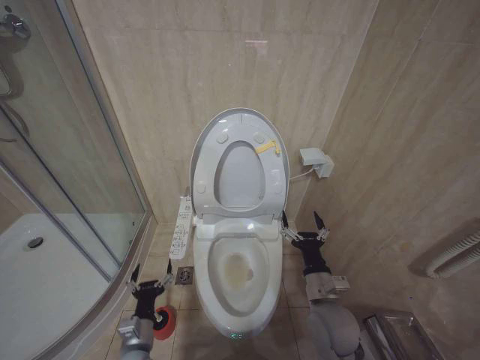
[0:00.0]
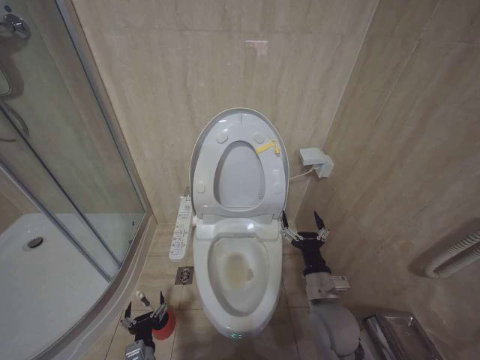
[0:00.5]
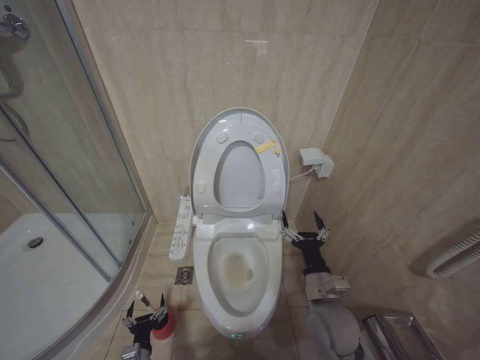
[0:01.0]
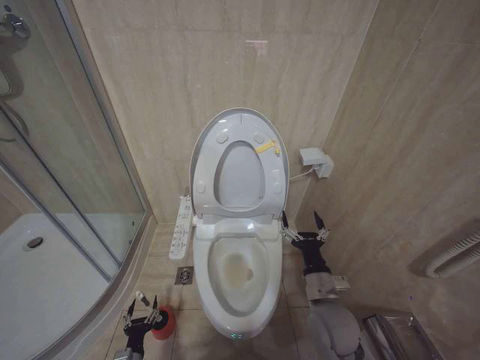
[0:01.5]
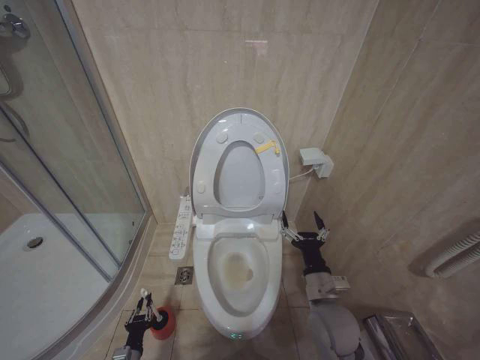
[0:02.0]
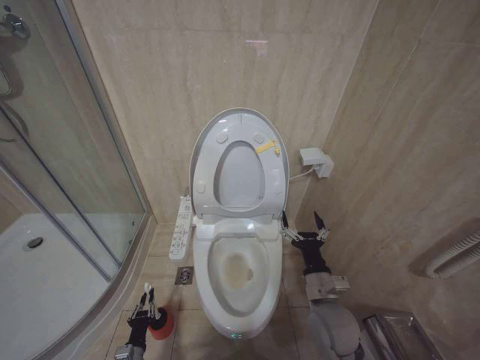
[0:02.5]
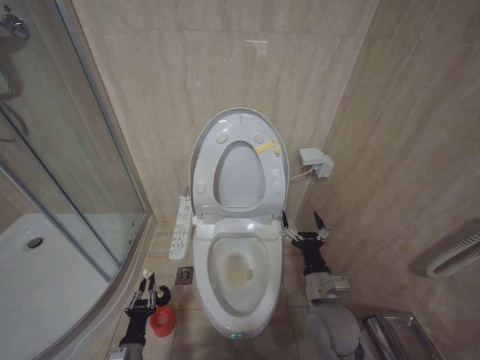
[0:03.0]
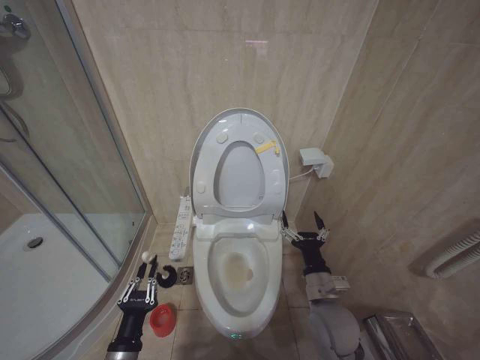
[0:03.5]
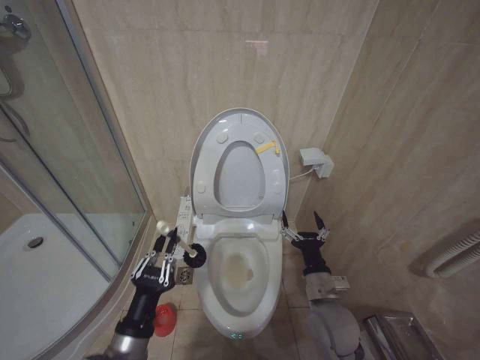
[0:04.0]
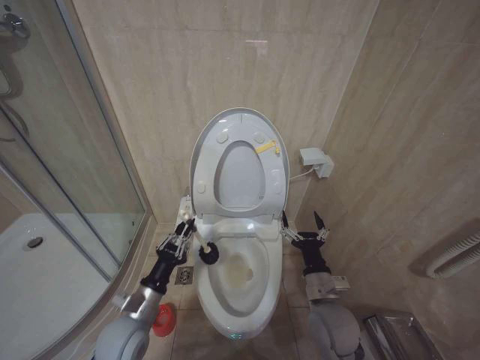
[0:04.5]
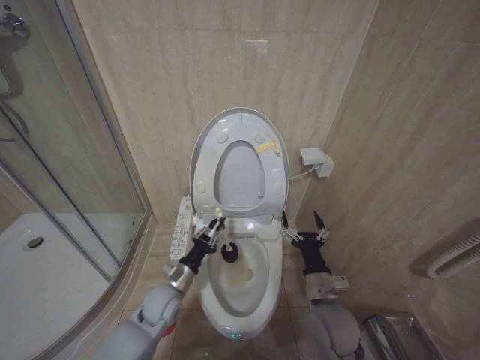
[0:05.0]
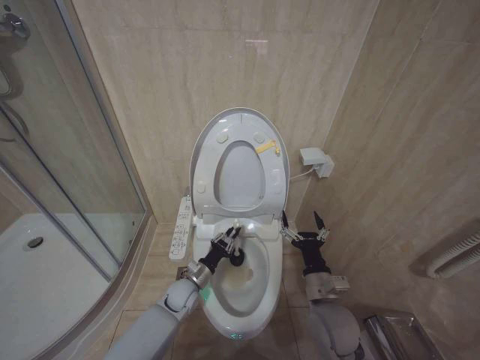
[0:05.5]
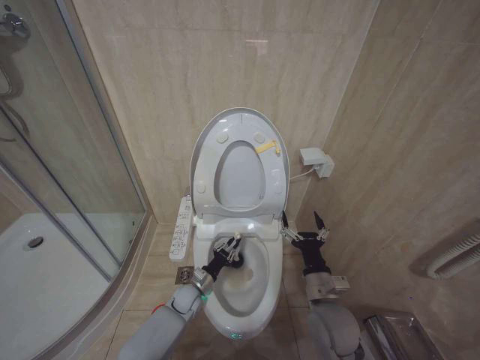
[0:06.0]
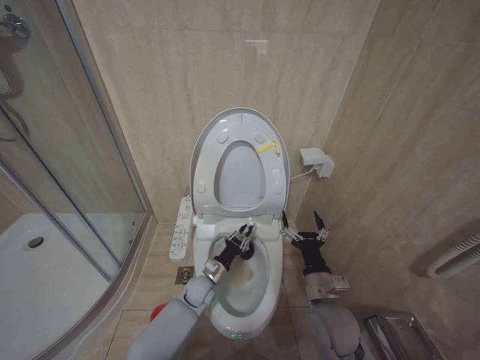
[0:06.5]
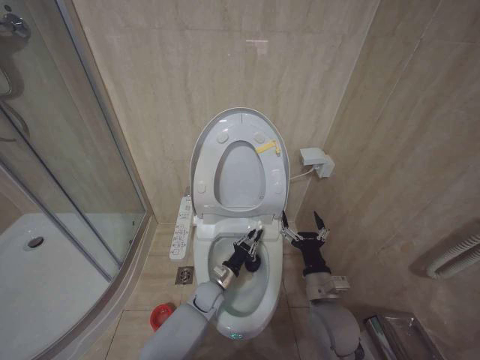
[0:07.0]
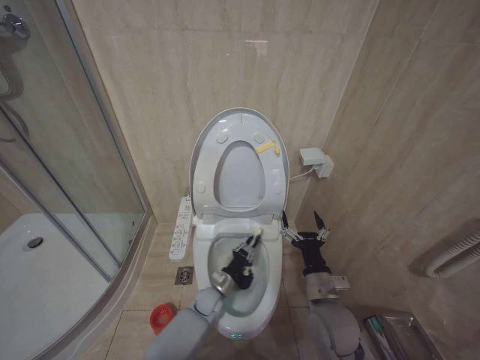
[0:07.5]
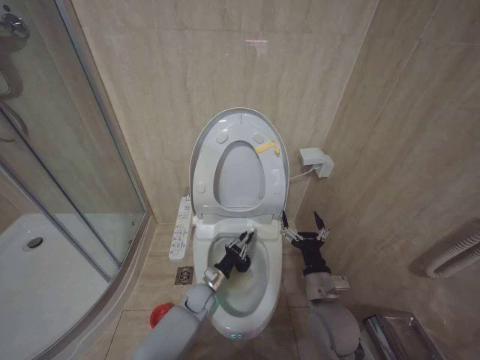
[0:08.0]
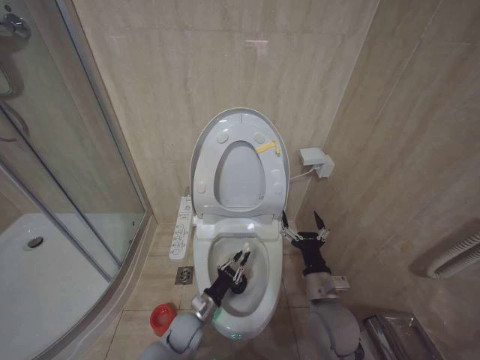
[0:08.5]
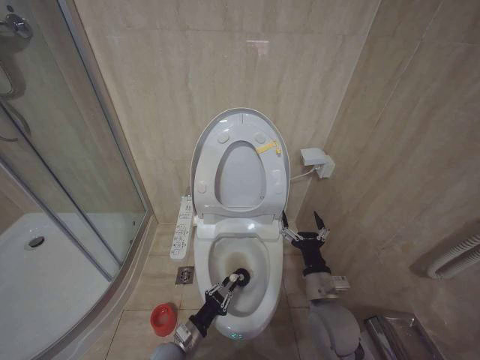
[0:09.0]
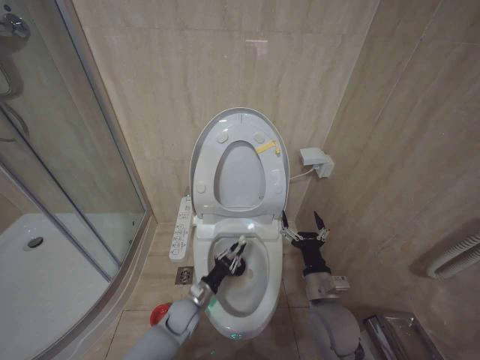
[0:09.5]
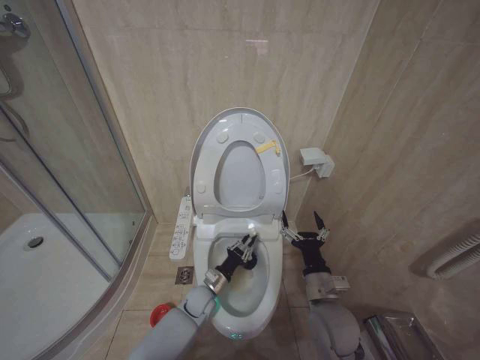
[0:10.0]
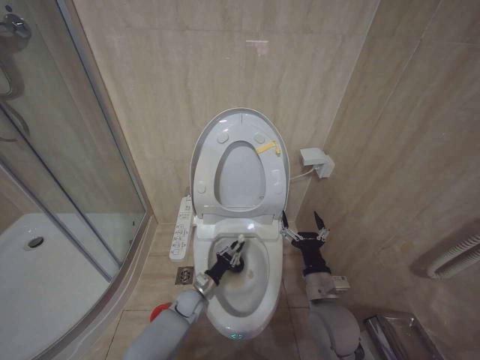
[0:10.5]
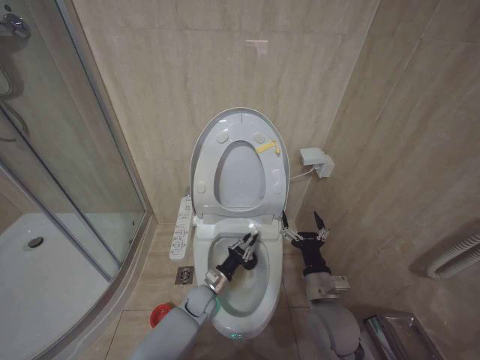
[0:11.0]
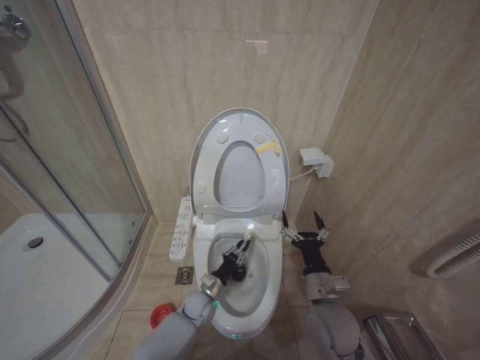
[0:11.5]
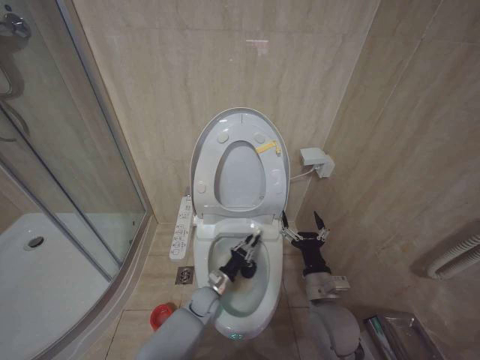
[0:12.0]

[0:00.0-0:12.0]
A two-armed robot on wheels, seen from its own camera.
Task of the whole recording: Open the toilet lid, clean the toilet bowl with a toilet brush, close the toilet lid, and flush.
0:00.0 to 0:02.0: The left gripper travels downward and to the left by roughly 20 cm, and closes up.
0:02.0 to 0:04.0: The left gripper shifts about 30 cm upward.
0:04.0 to 0:06.0: The left gripper heads forward and downward, covering some 35 cm.
0:08.0 to 0:10.0: The left gripper moves about 15 cm backward and comes back.

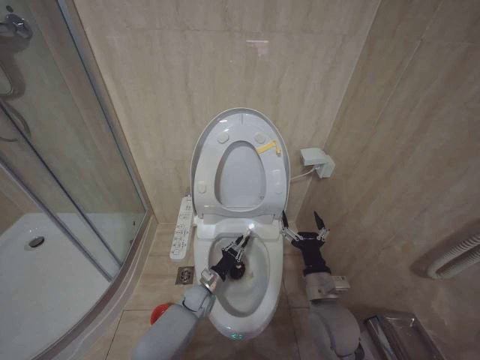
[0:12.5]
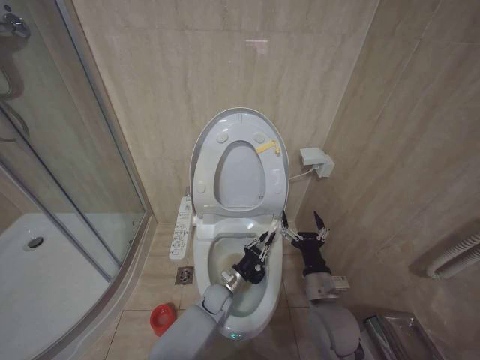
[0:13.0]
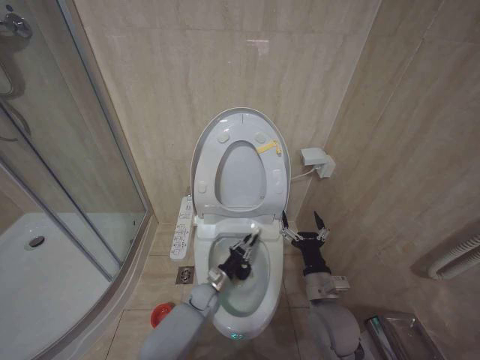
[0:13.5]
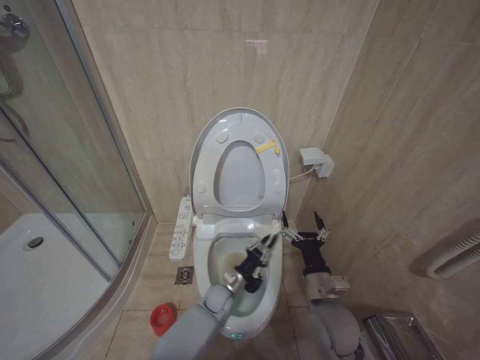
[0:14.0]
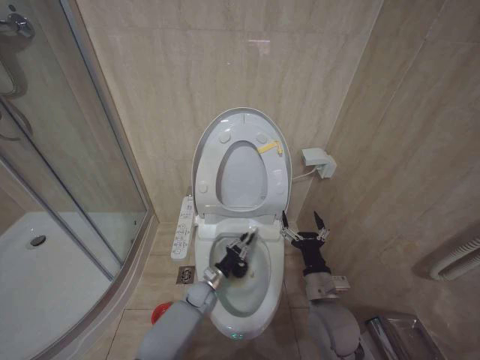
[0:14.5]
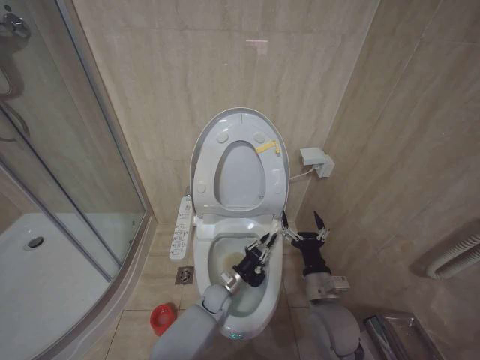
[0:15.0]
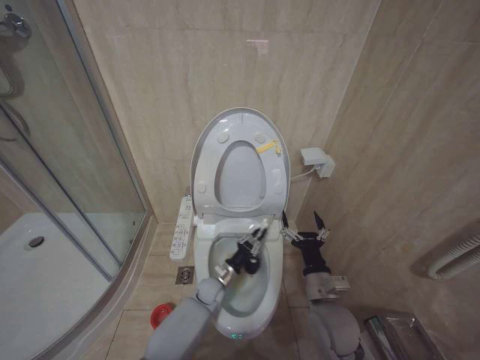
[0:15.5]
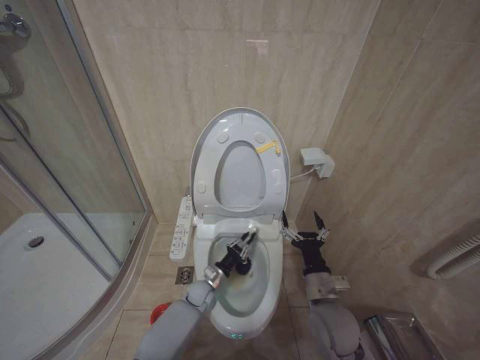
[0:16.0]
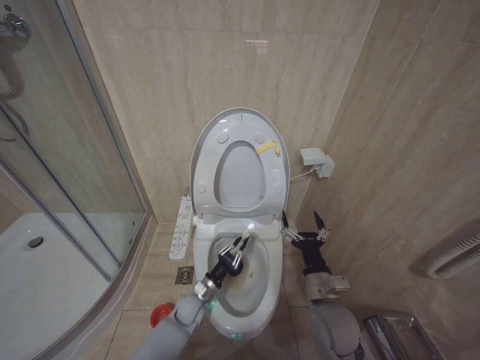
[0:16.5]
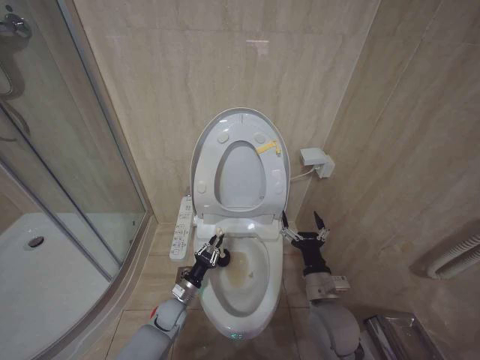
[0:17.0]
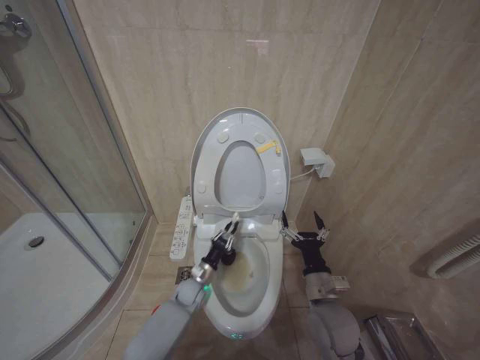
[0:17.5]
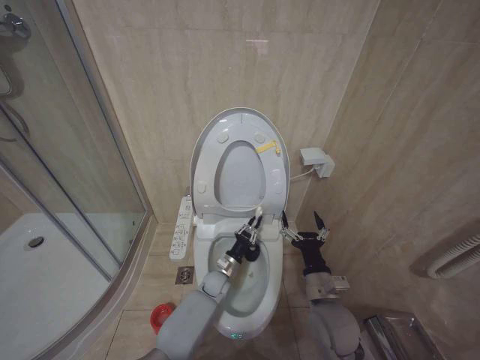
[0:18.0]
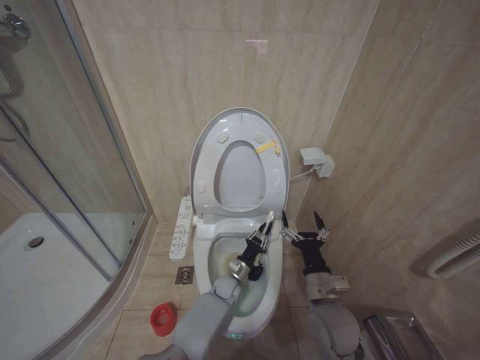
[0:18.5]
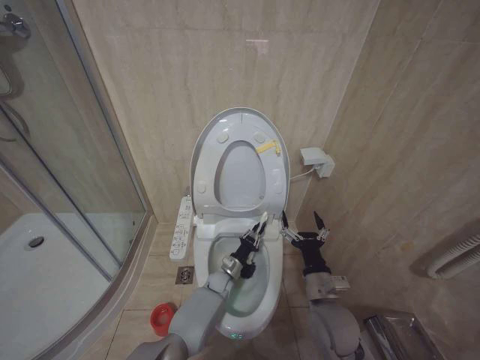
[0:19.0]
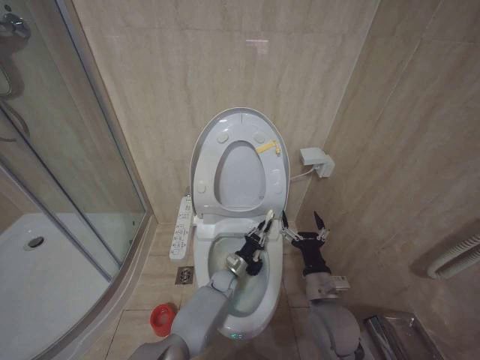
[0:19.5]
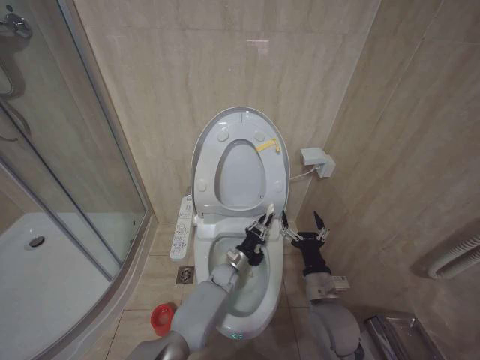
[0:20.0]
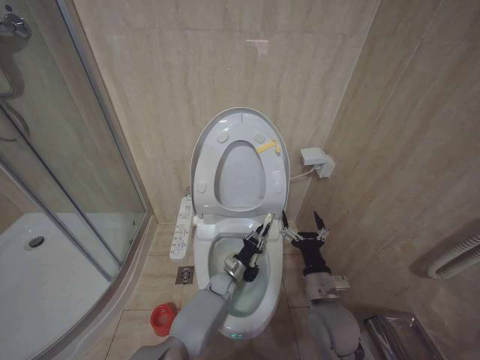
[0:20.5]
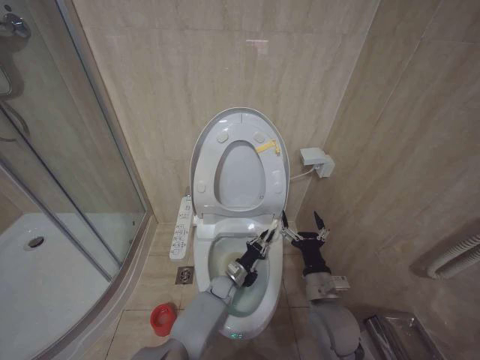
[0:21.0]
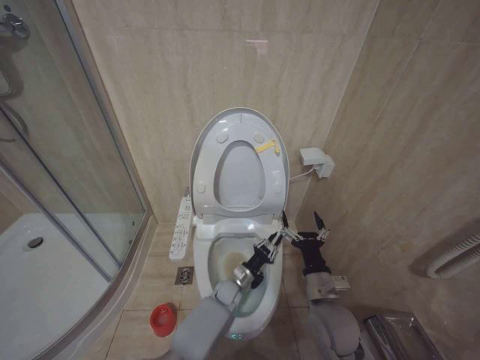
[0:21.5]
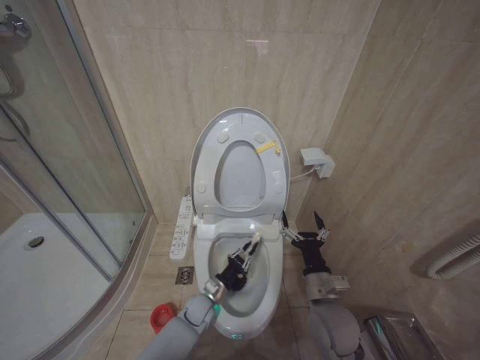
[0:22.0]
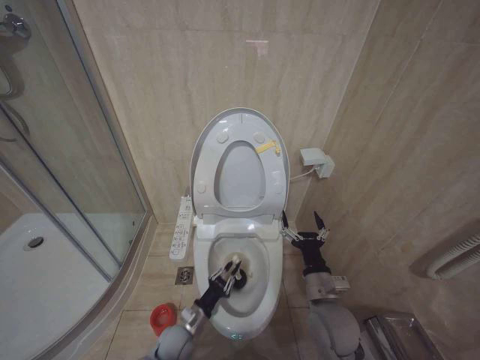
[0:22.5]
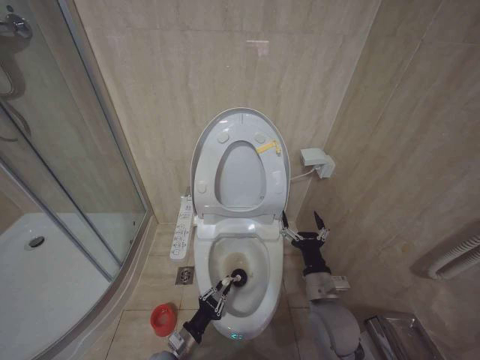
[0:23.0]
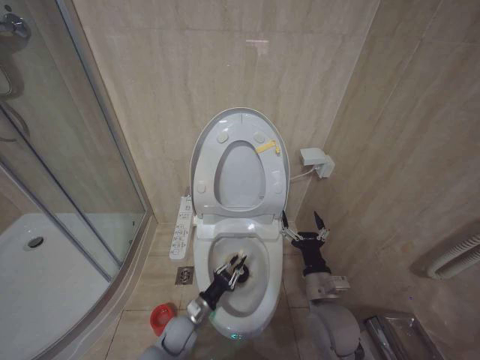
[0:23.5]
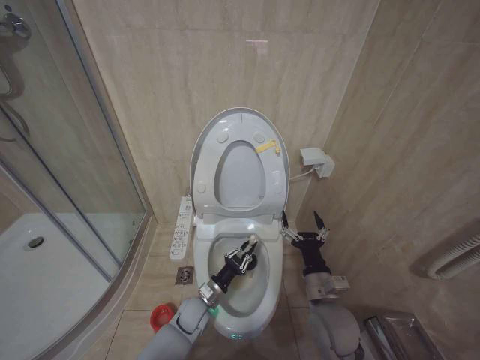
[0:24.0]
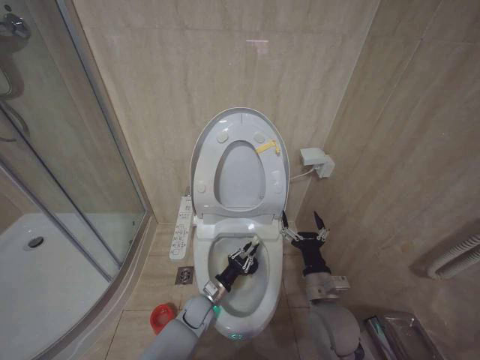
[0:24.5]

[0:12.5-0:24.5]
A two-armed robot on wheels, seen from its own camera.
Task of the whole recording: Open the toilet lid, clean the toilet bowl with a toilet brush, close the toilet lid, and flush.
0:12.5 to 0:14.5: The left gripper swings left and right, about 10 cm each way, with 3 reversals.
0:14.5 to 0:16.5: The left gripper goes to the right and returns, about 5 cm each way.
0:16.5 to 0:18.5: The left gripper is displaced to the right by about 10 cm.
0:18.5 to 0:20.5: The grippers move only a little.
0:20.5 to 0:22.5: The left gripper shifts approximately 20 cm backward and to the left.
0:22.5 to 0:24.5: The left gripper goes about 10 cm forward and to the right.

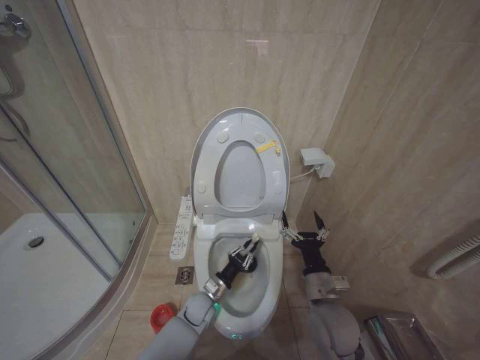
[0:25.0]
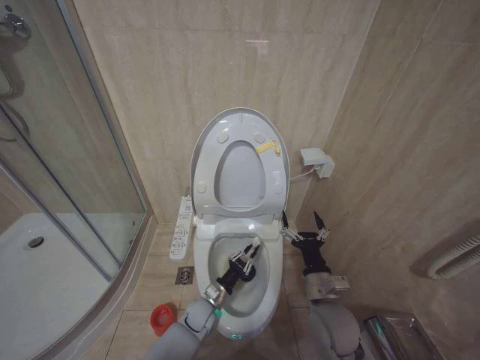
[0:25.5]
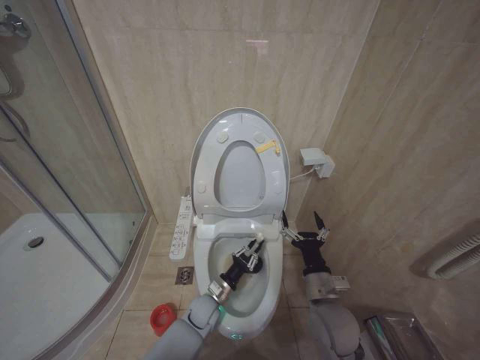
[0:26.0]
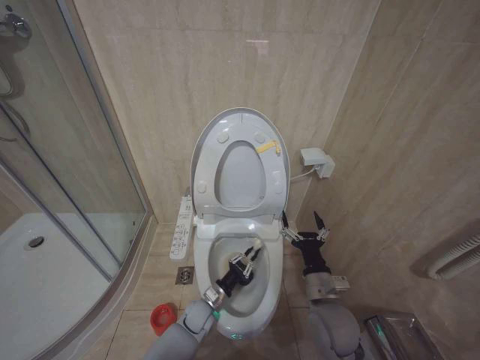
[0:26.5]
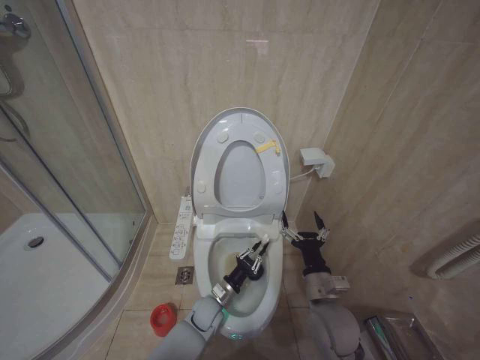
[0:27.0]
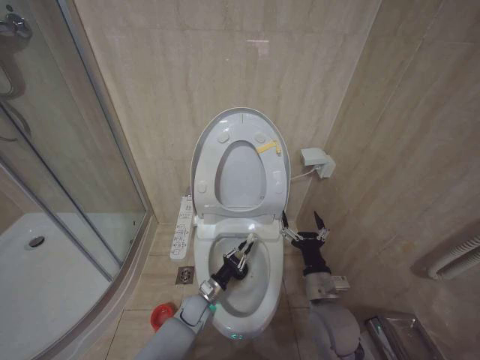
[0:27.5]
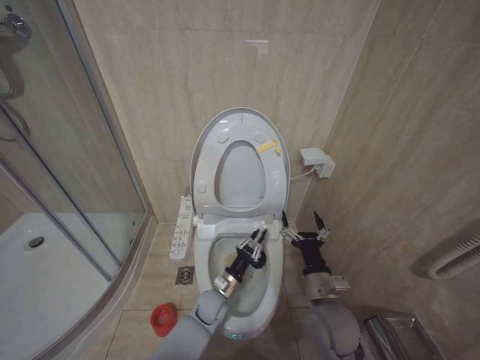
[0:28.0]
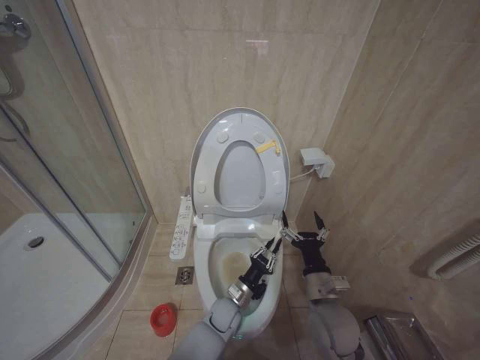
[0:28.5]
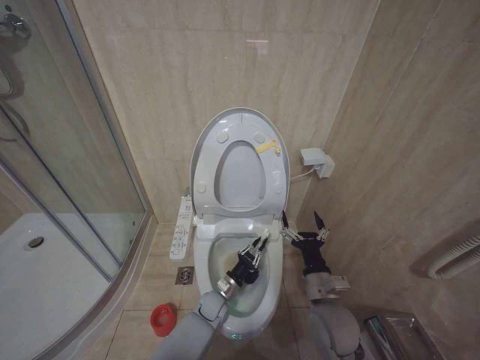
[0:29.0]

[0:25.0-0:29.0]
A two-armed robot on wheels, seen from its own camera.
Task of the whole recording: Open the toilet lid, clean the toilet bowl with a toilet brush, close the toilet lid, and flush.
0:25.0 to 0:27.0: The grippers stay close to where they were, moving slightly.
0:27.0 to 0:29.0: The left gripper goes left and right, some 10 cm each way, reversing 2 times.
